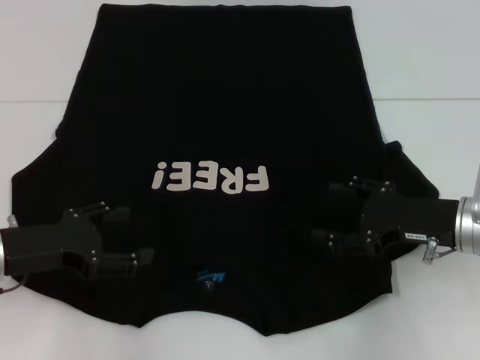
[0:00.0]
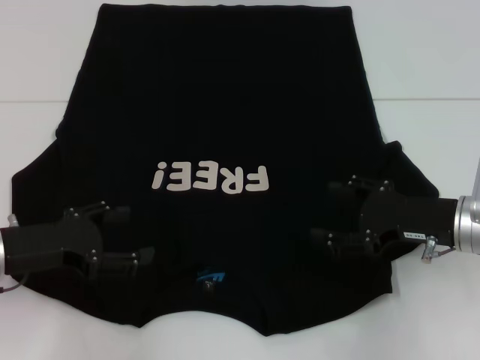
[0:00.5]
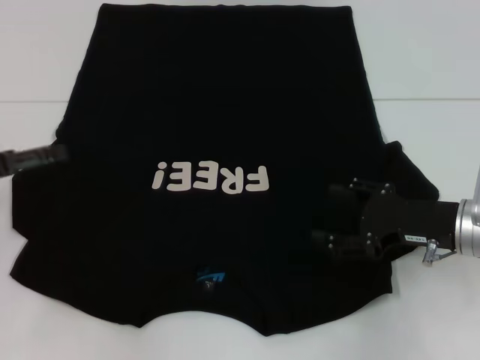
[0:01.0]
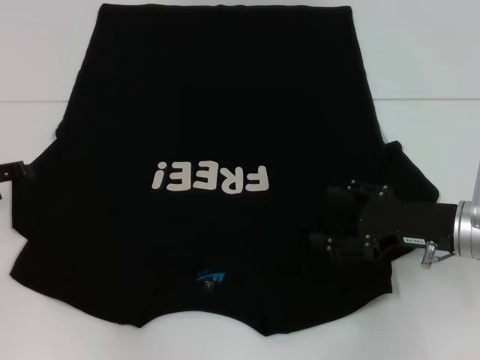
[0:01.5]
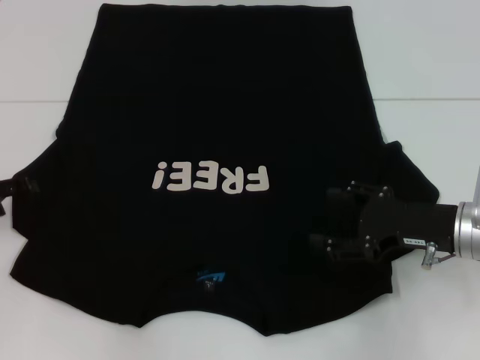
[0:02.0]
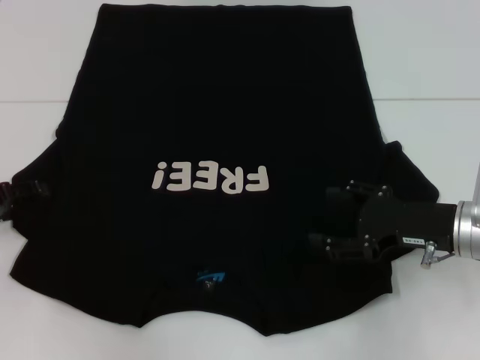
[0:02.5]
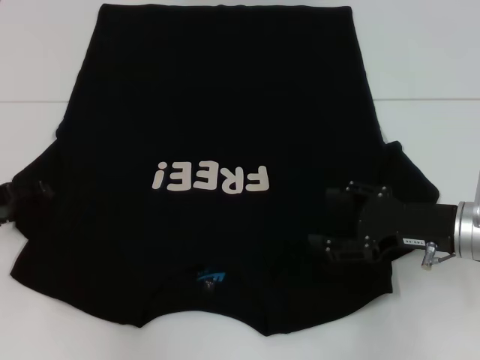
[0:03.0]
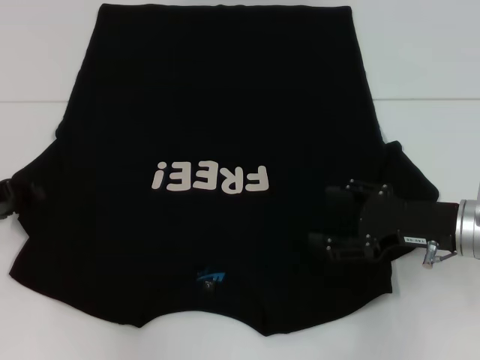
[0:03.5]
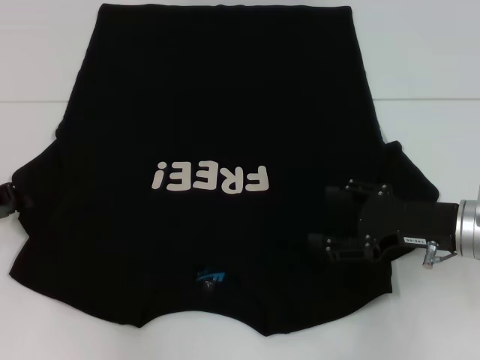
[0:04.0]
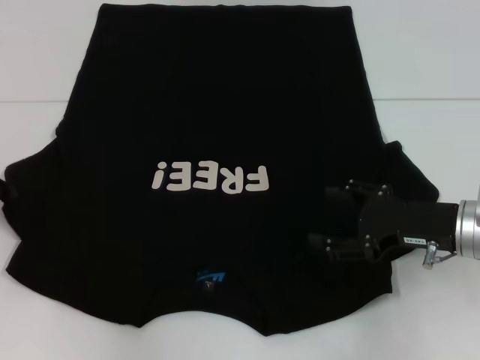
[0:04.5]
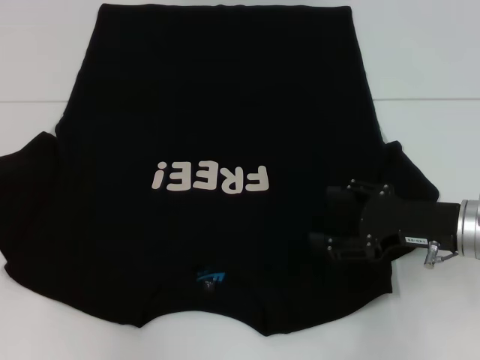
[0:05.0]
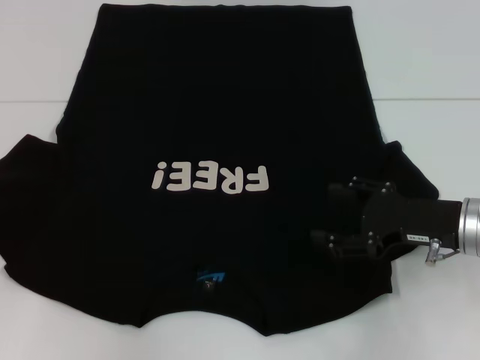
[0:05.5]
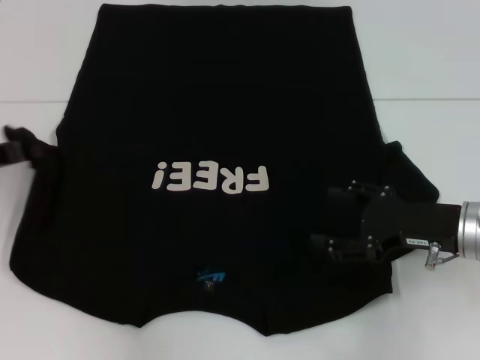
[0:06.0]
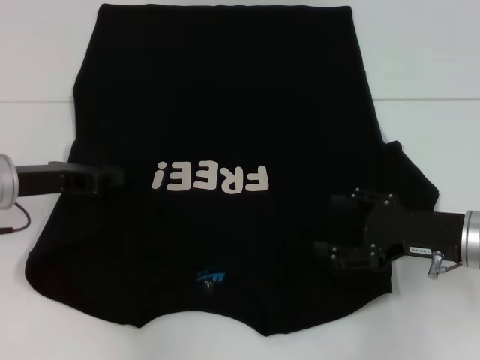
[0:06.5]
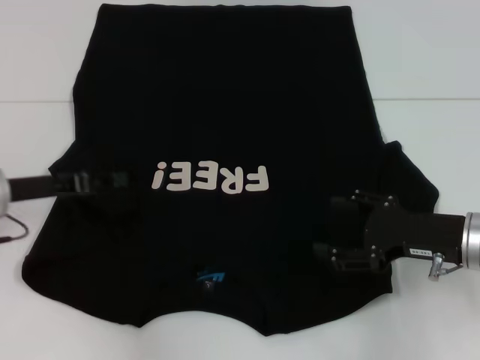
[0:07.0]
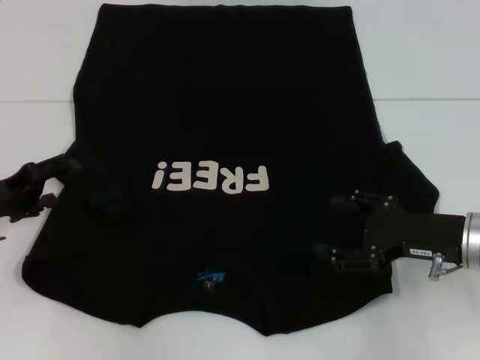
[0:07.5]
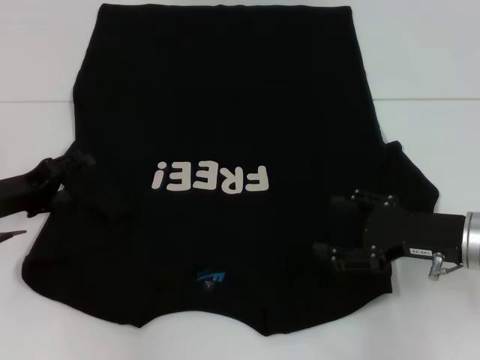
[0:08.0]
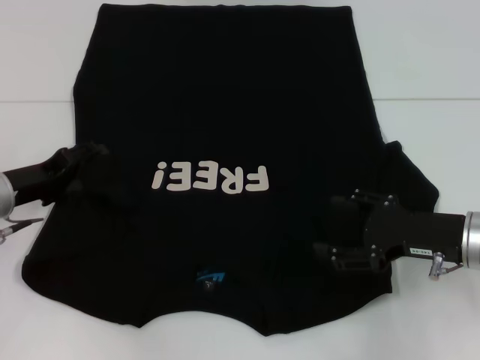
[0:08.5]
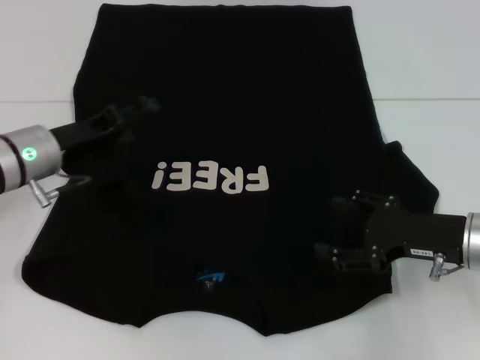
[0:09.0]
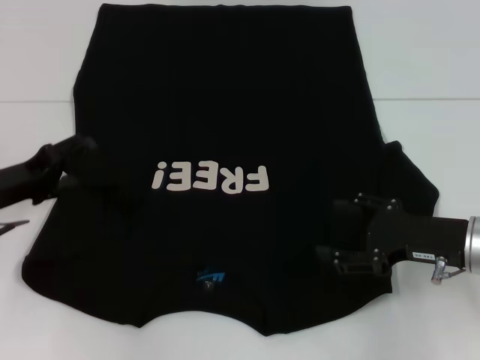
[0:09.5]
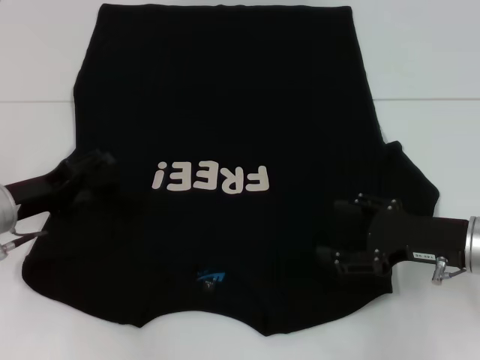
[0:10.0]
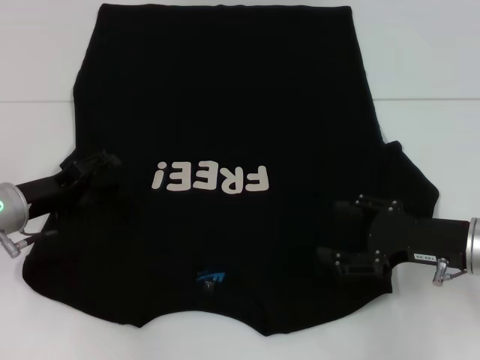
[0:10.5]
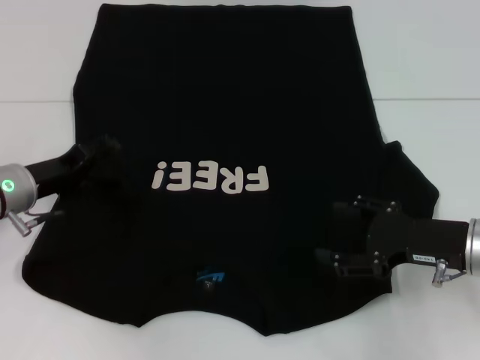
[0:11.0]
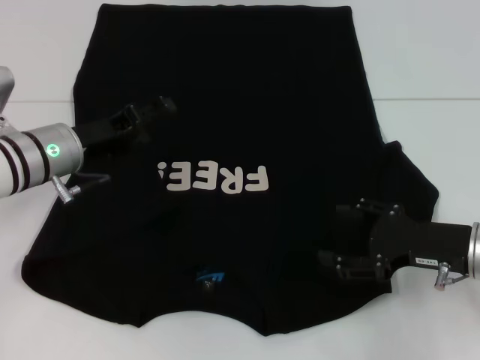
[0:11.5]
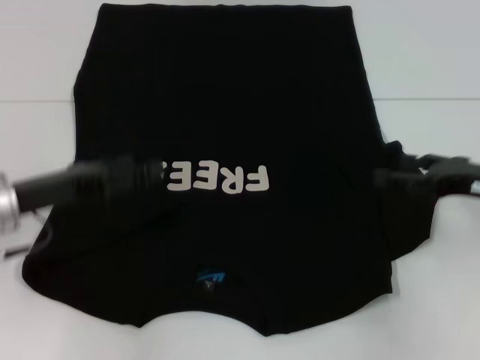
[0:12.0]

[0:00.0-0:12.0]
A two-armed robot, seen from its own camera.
Step, 0:00.0 to 0:11.0: Fold the bottom left sleeve with your left hand.
0:00.0 to 0:02.0: The left gripper shifts about 10 cm to the left.
0:04.0 to 0:06.0: The grippers move only a little.
0:06.0 to 0:08.0: The left gripper moves downward, approximately 5 cm, and opens up.
0:10.0 to 0:12.0: The right gripper moves to the right, some 5 cm.

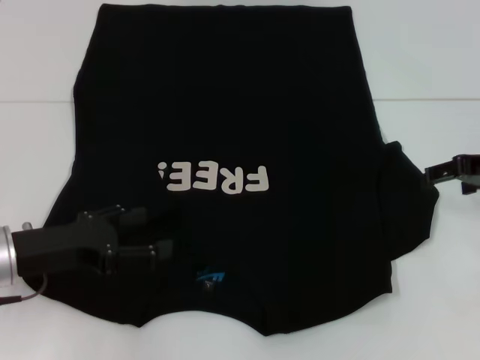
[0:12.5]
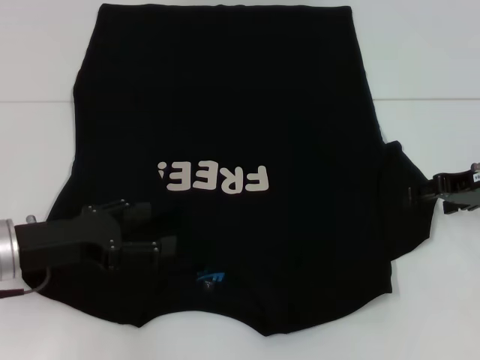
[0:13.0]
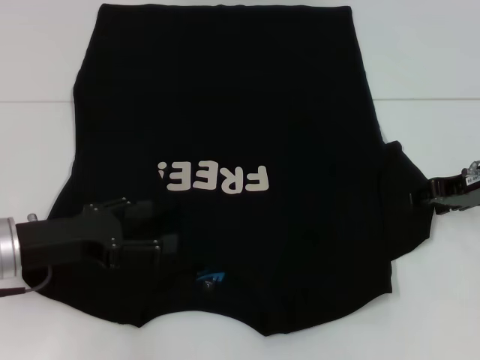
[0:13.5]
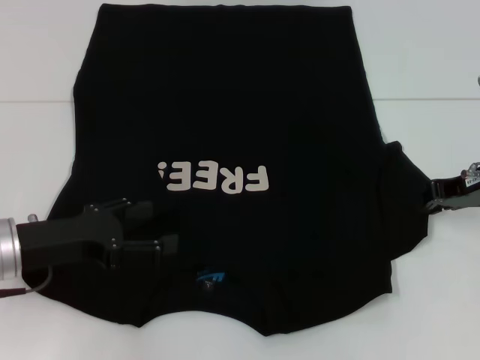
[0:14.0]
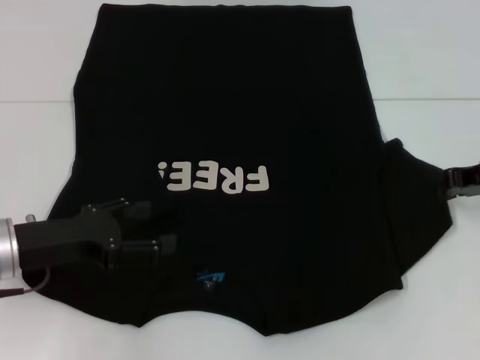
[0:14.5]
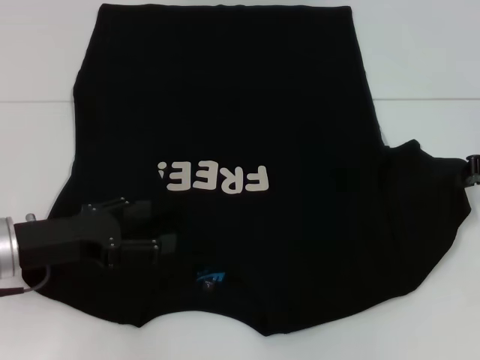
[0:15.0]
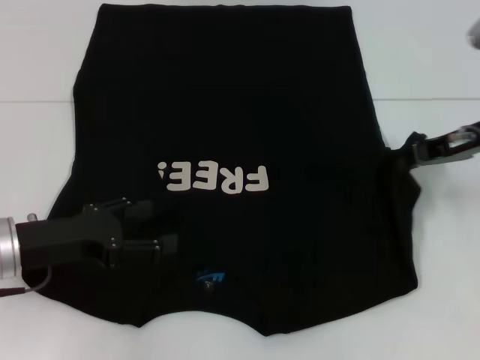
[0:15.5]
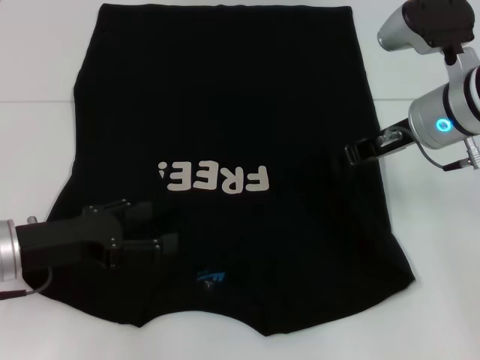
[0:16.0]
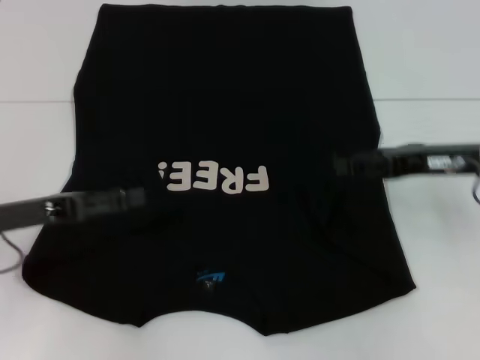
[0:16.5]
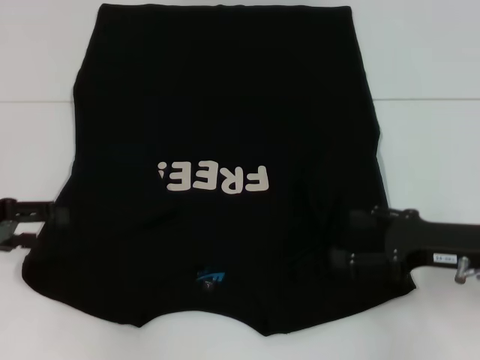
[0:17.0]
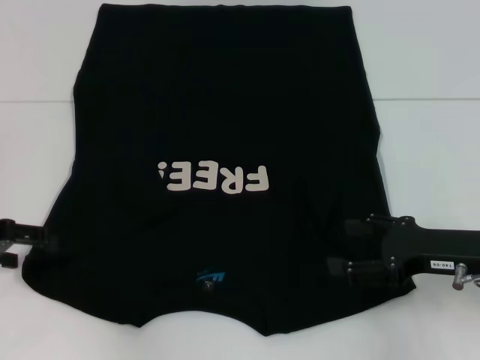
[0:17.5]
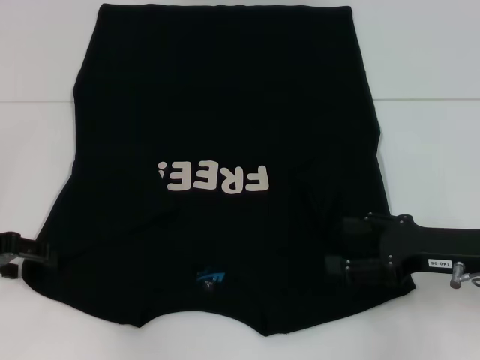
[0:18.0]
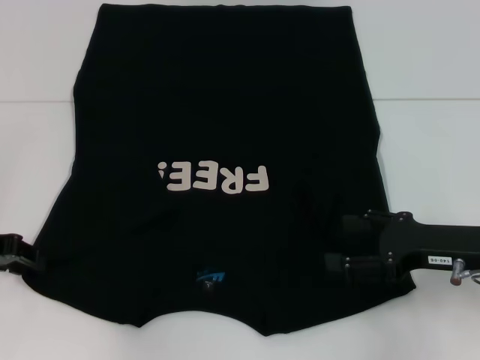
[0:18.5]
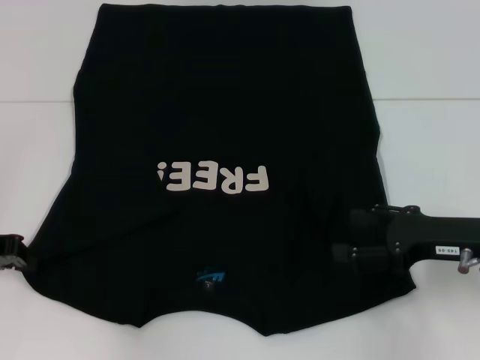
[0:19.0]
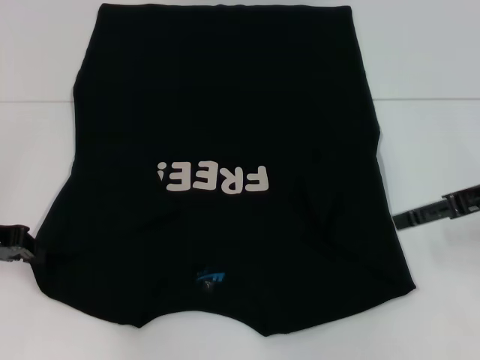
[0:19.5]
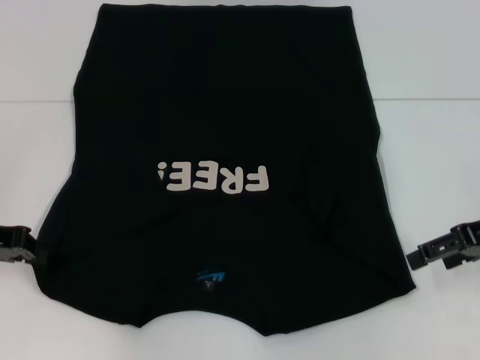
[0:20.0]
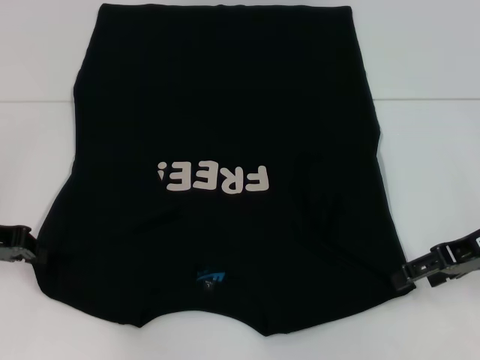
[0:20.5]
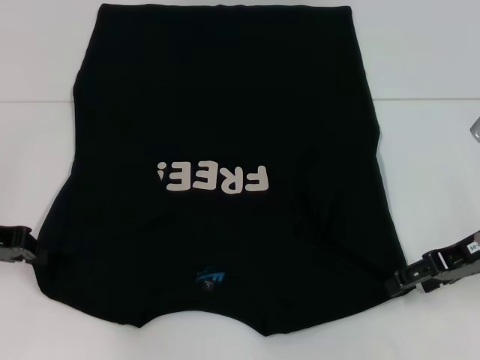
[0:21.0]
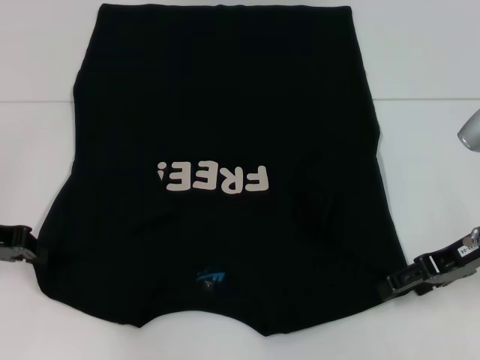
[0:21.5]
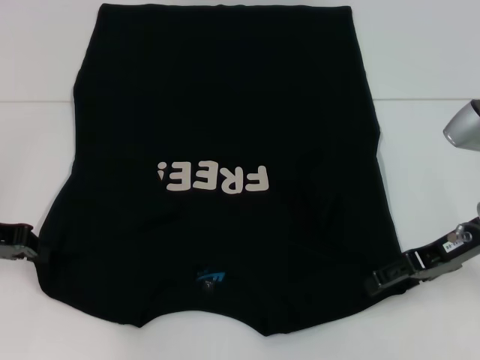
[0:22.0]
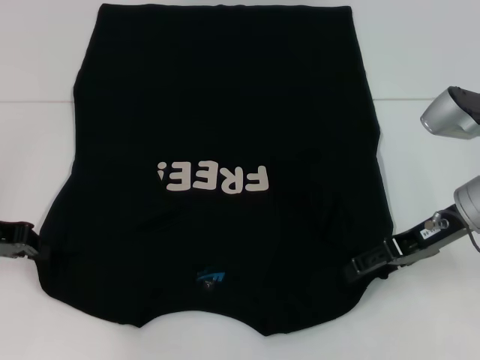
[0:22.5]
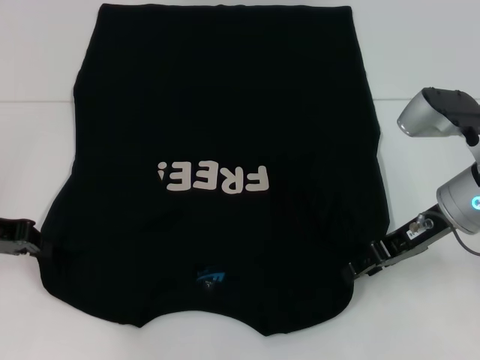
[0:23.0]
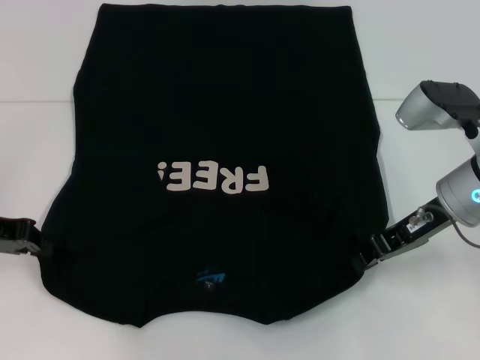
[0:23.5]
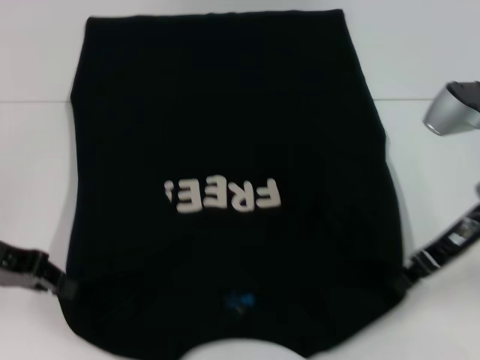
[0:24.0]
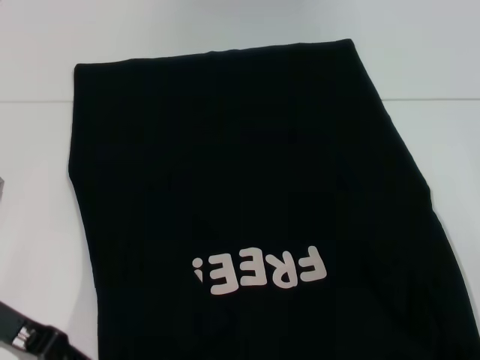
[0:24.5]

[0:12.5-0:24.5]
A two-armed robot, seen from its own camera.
Step, 0:12.5 to 0:16.0: Fold the bottom right sleeve with your right hand.
Step, 0:16.5 to 0:19.0: Grab the bottom left corner with your left hand.
Step, 0:19.5 to 0:23.5: Grab the bottom right corner with your right hand.
0:12.5 to 0:14.5: The right gripper closes.
0:14.5 to 0:16.5: The right gripper goes to the left and returns, some 10 cm each way, and opens.
0:16.5 to 0:18.5: The right gripper travels backward and downward by about 10 cm, and opens, while the left gripper shifts by about 5 cm.
0:18.5 to 0:20.5: The left gripper closes.
0:20.5 to 0:22.5: The right gripper travels to the left by some 5 cm.
0:22.5 to 0:24.5: The right gripper shifts approximately 10 cm to the right and backward, and closes up, while the left gripper is displaced backward by about 5 cm.

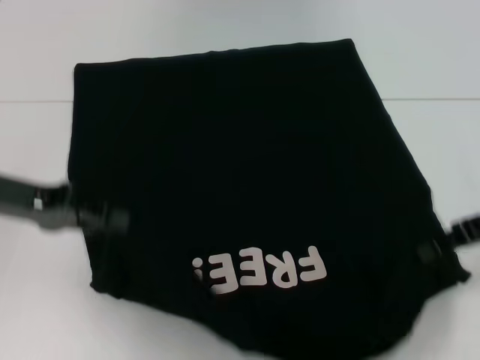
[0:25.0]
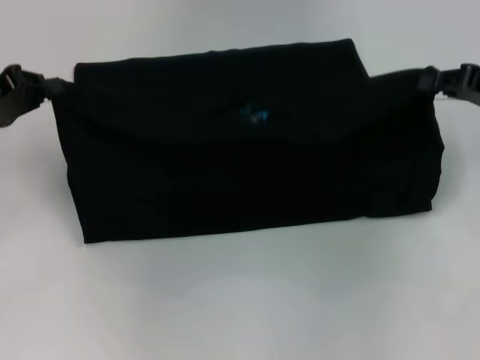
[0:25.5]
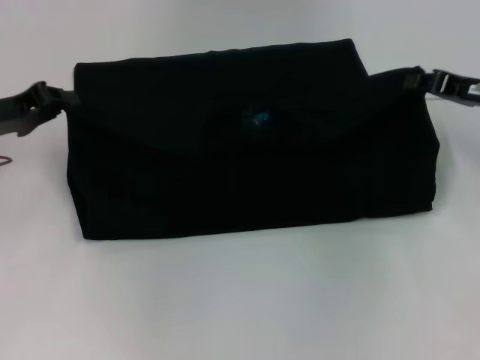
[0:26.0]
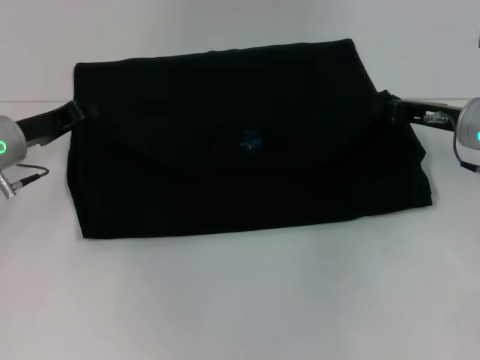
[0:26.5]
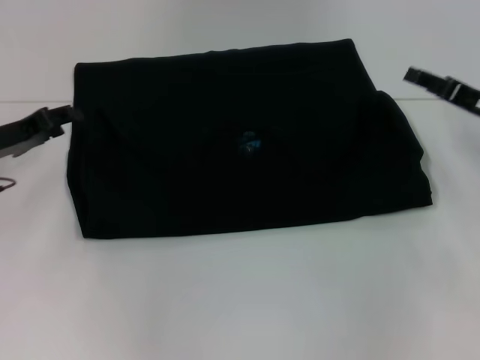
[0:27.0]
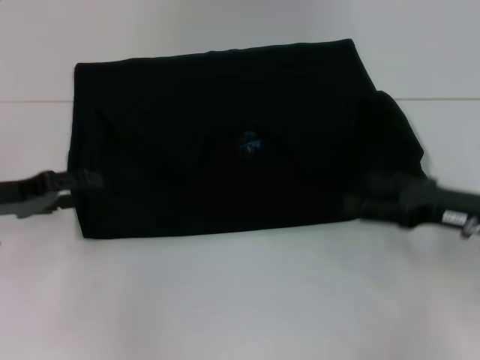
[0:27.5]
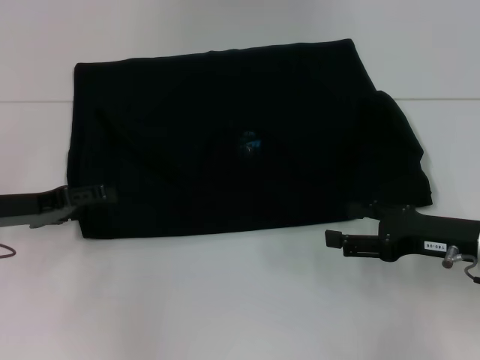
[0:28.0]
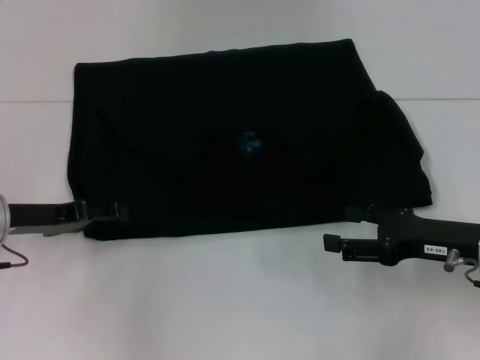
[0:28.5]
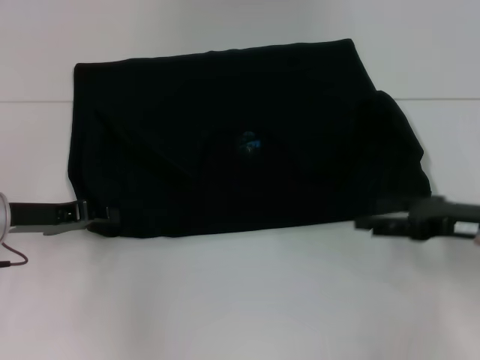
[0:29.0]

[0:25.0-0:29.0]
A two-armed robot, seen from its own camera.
0:25.0 to 0:27.0: The right gripper opens; the left gripper goes some 5 cm downward.
0:27.0 to 0:29.0: The right gripper shifts roughly 5 cm backward, and opens; the left gripper opens and closes again.
